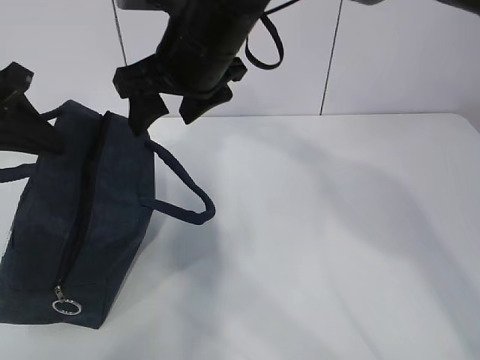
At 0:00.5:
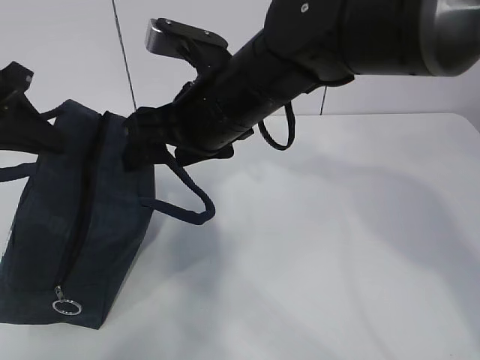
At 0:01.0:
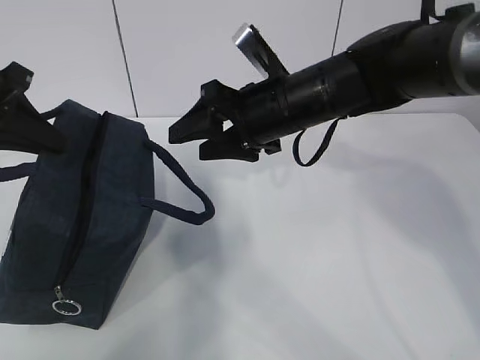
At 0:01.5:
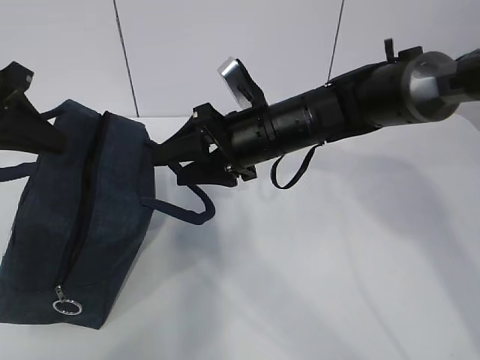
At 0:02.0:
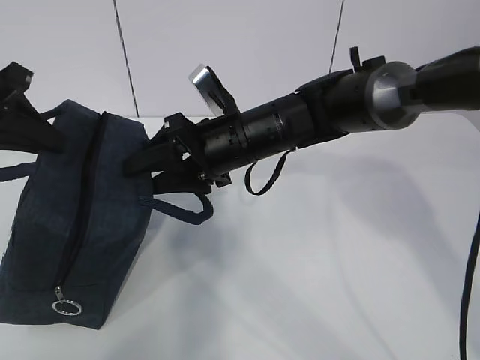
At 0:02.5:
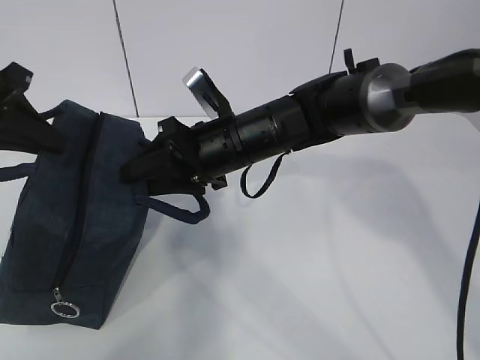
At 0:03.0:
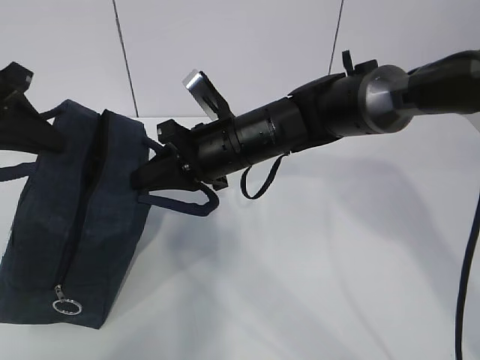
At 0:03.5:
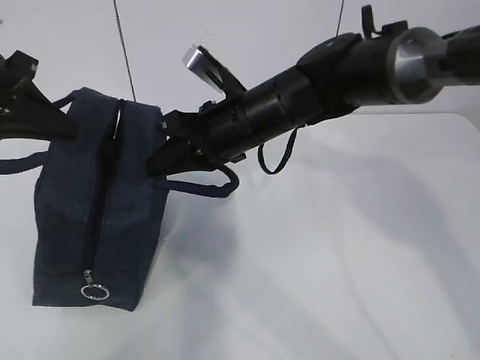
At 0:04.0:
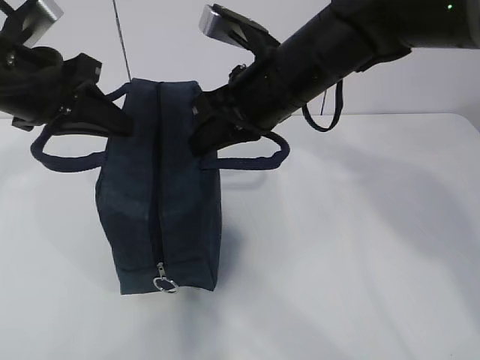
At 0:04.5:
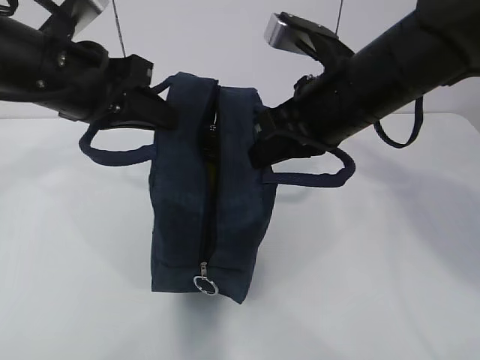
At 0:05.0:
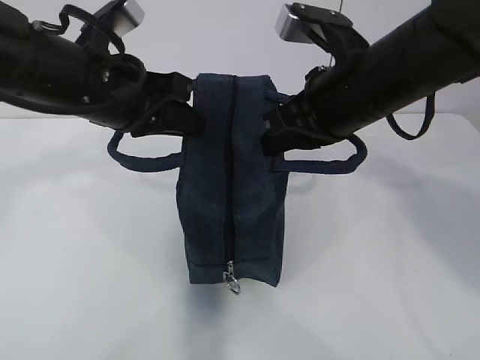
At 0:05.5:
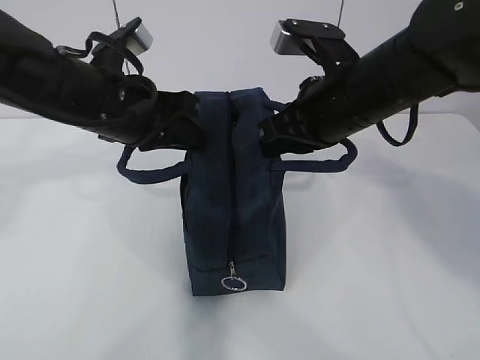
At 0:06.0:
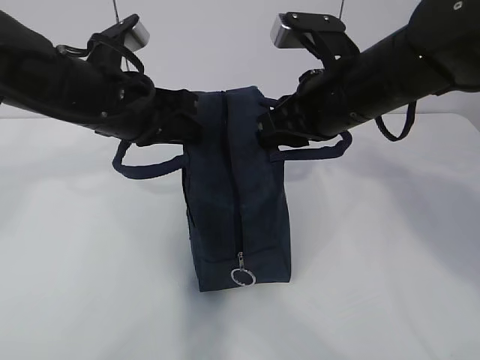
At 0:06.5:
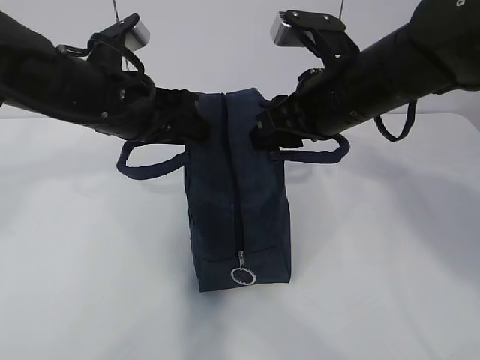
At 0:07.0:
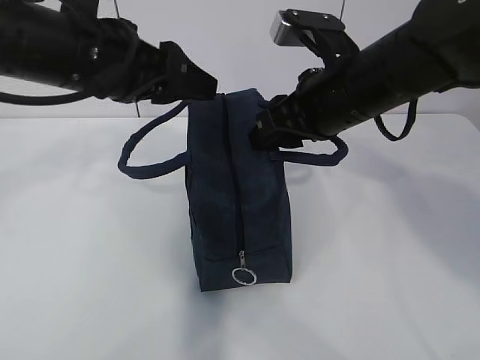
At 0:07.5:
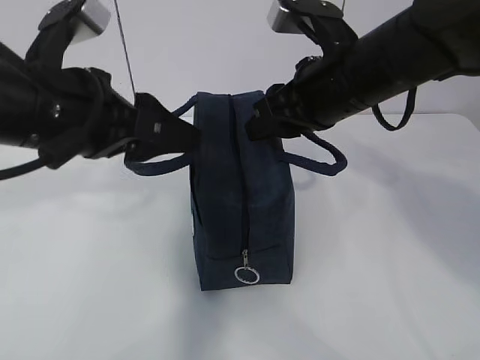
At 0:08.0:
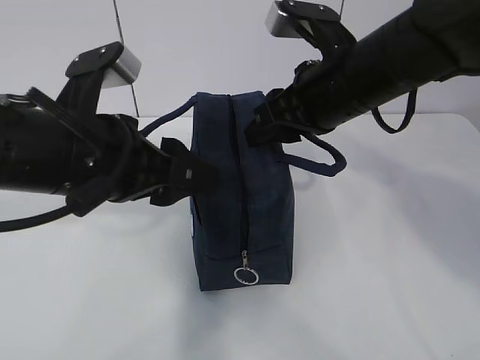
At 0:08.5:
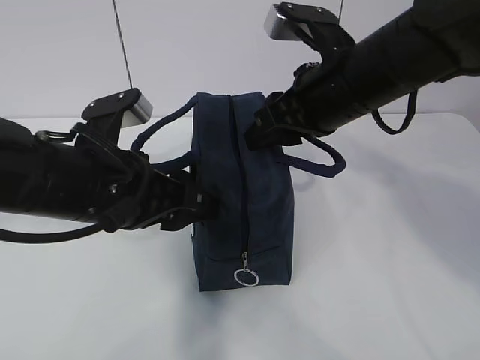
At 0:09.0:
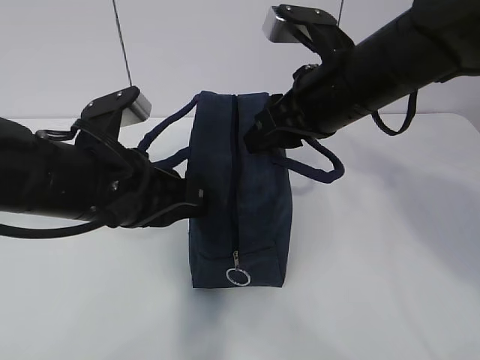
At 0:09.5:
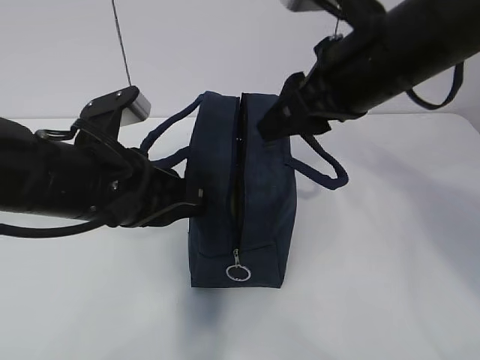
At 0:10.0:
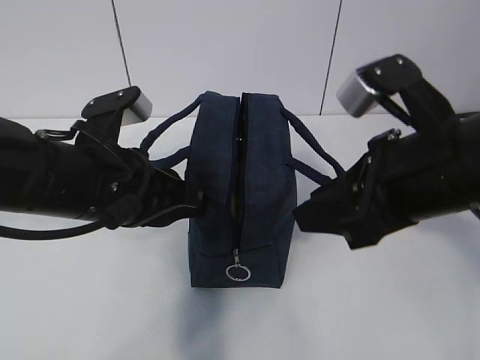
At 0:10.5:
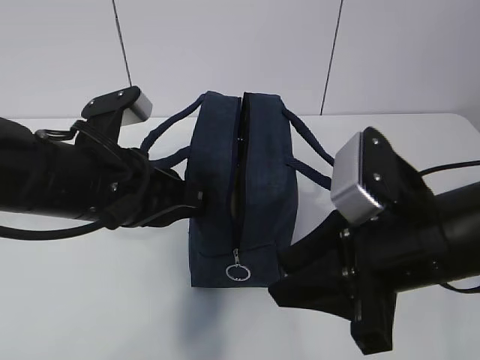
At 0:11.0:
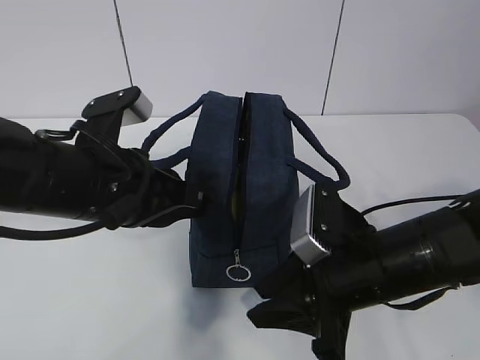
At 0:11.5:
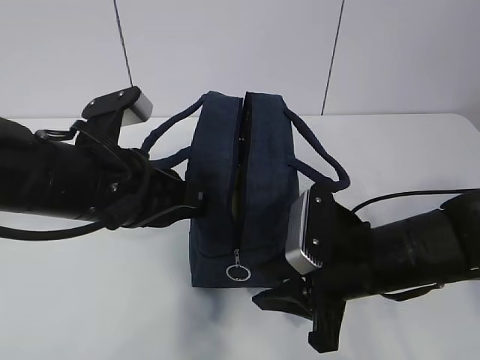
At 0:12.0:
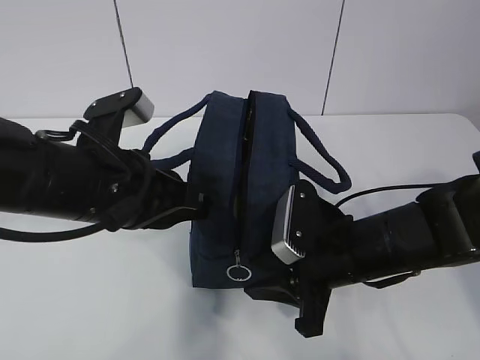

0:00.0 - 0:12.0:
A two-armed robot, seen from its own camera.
0:00.0 - 0:02.0: The right gripper travels downward by about 10 cm.
0:02.0 - 0:04.0: The left gripper moves to the right, approximately 5 cm; the right gripper moves upward, about 10 cm, and closes.
0:04.0 - 0:06.0: Both grippers move to the right, approximately 5 cm.
0:06.0 - 0:08.0: The left gripper travels backward by some 10 cm, and opens.
0:08.0 - 0:10.0: The left gripper closes its fingers. The right gripper goes approximately 10 cm backward.
0:10.0 - 0:12.0: The right gripper travels downward by approximately 15 cm.

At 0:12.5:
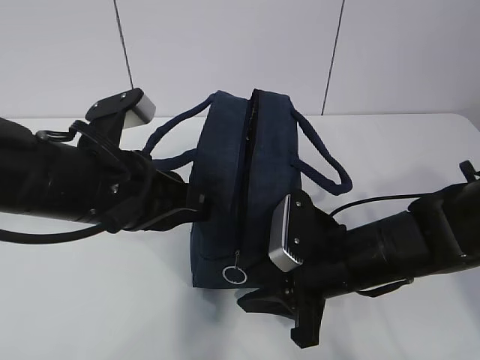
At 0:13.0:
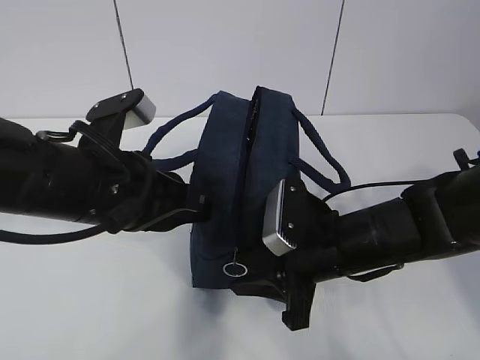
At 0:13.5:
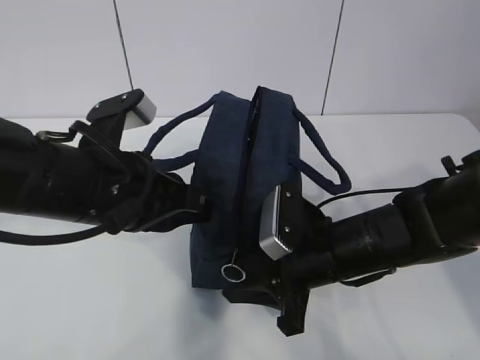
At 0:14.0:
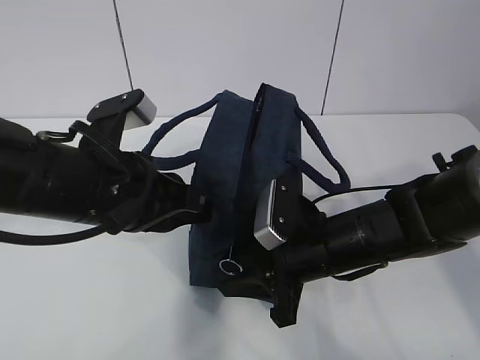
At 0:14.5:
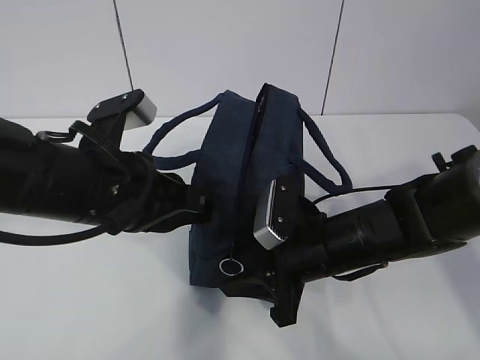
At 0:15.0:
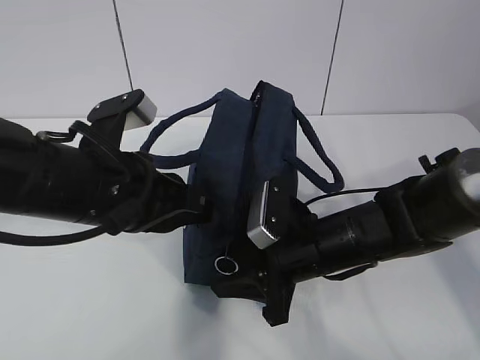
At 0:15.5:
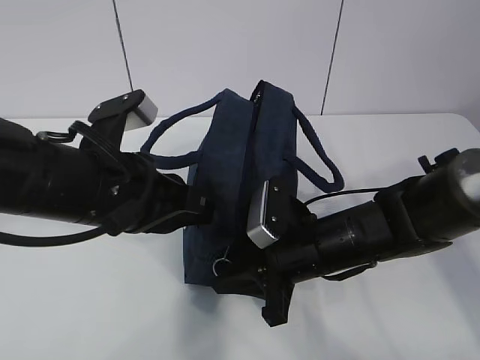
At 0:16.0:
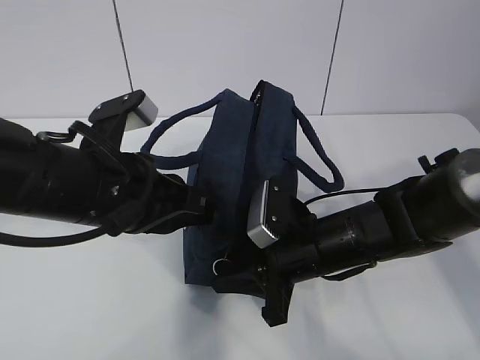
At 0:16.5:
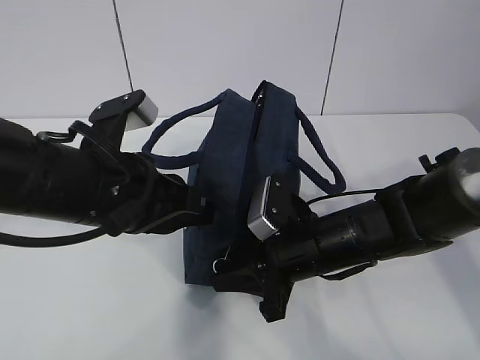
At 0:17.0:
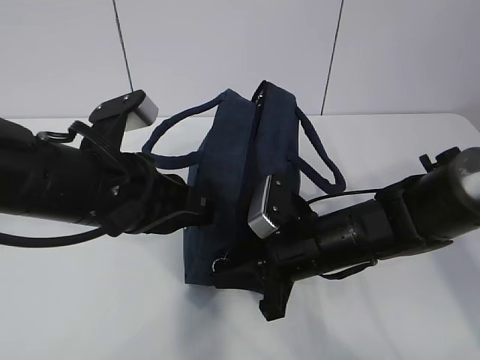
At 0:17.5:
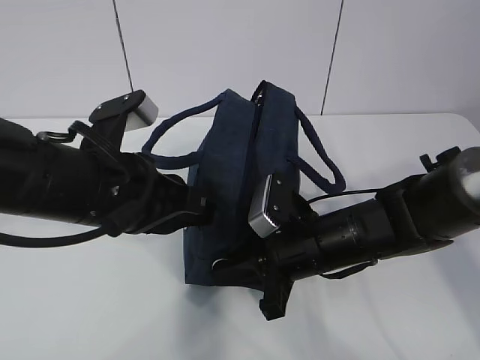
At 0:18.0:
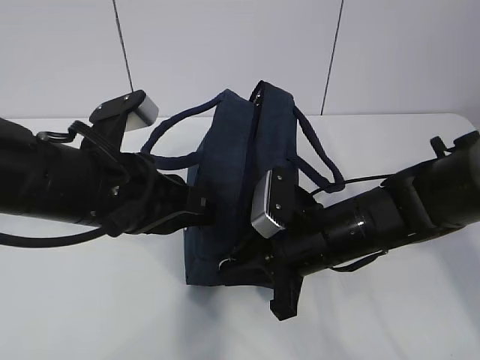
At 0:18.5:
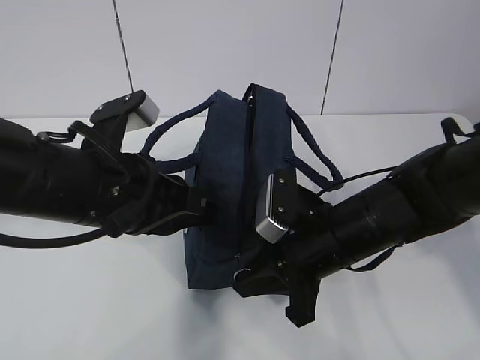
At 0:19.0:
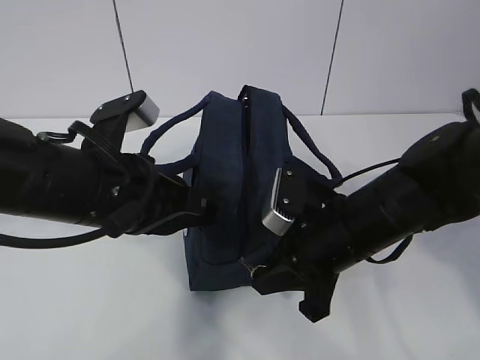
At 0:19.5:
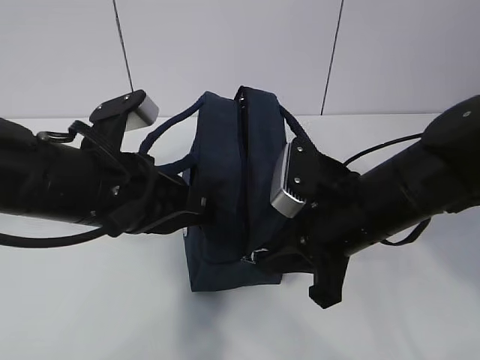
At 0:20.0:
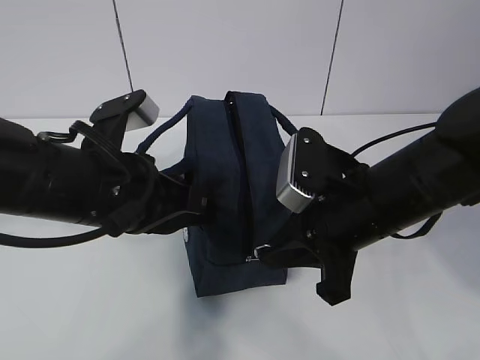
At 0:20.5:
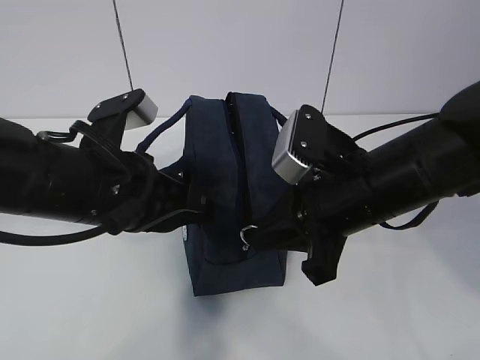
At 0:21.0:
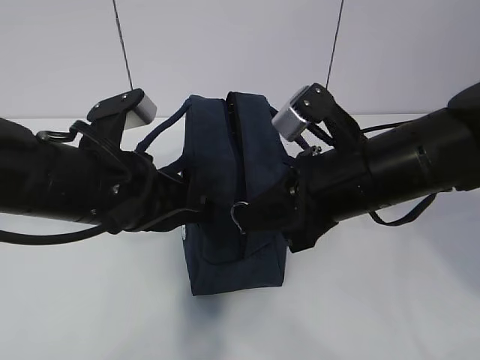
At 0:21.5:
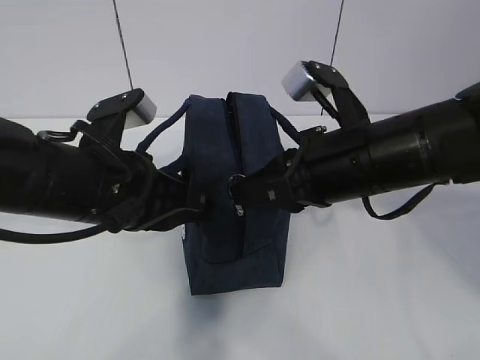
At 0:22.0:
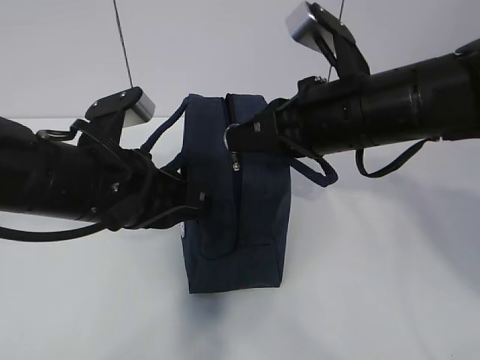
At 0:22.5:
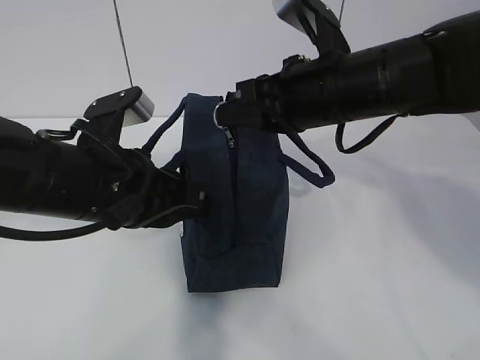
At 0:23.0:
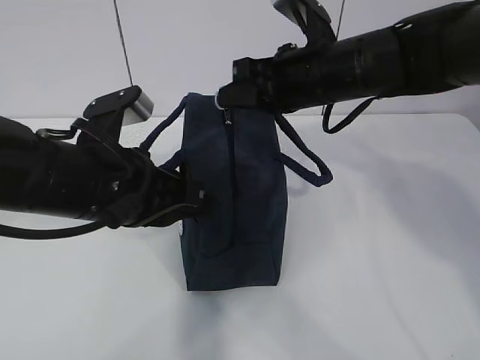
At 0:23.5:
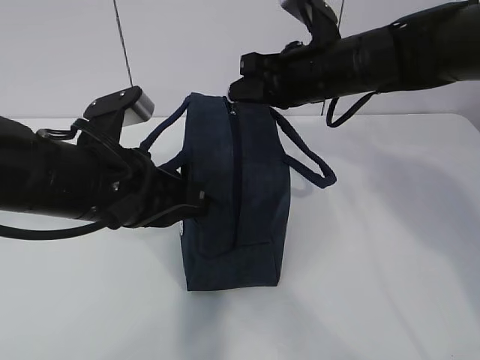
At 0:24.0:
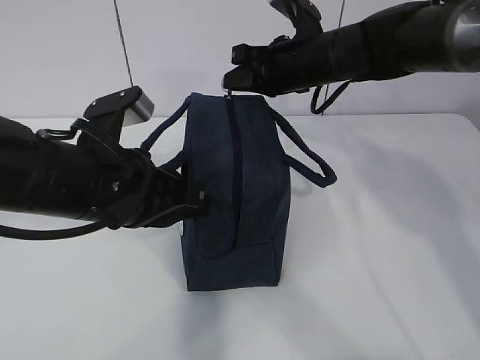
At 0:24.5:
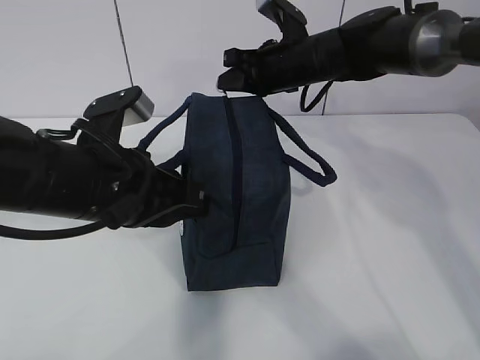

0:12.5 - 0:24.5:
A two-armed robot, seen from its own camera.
0:12.5 - 0:18.5: There are only small adjustments of the grippers.
0:18.5 - 0:20.5: The right gripper shifts approximately 10 cm upward.
0:20.5 - 0:22.5: The right gripper heads forward and upward, covering some 10 cm.
0:22.5 - 0:24.5: The right gripper goes some 15 cm forward.

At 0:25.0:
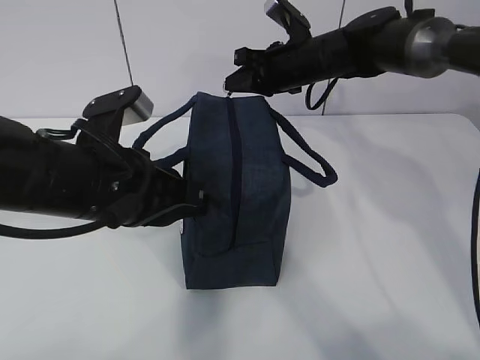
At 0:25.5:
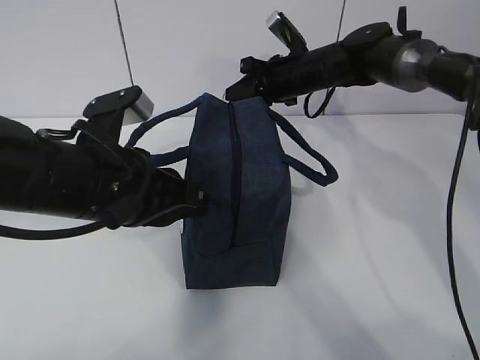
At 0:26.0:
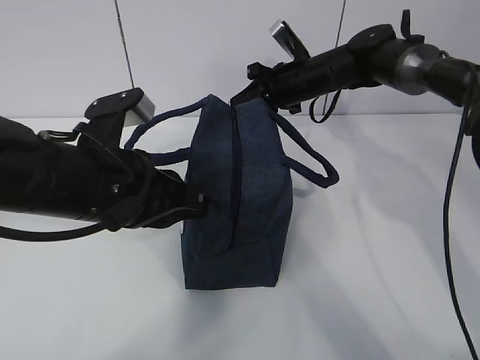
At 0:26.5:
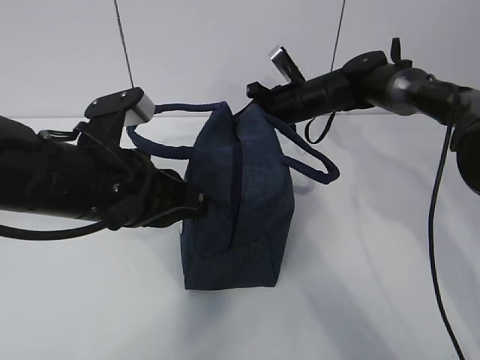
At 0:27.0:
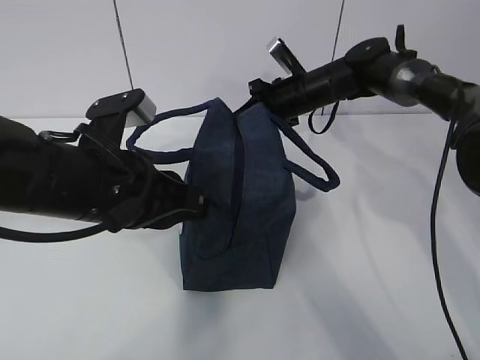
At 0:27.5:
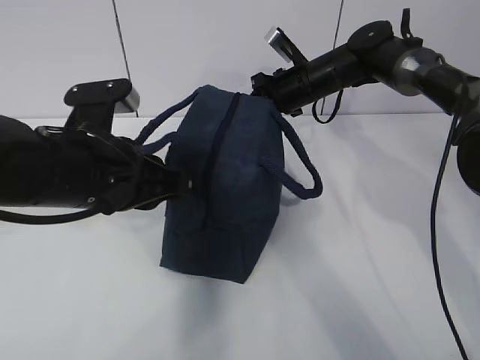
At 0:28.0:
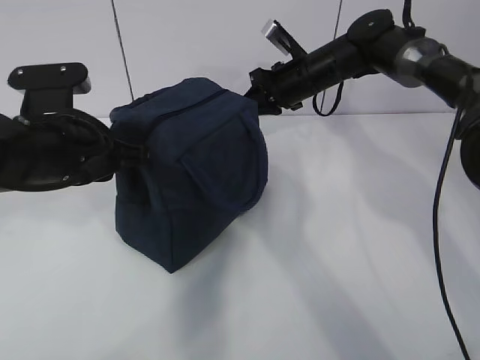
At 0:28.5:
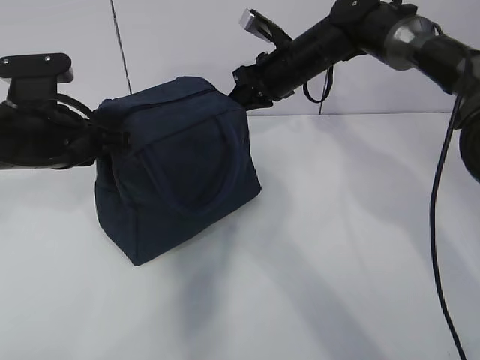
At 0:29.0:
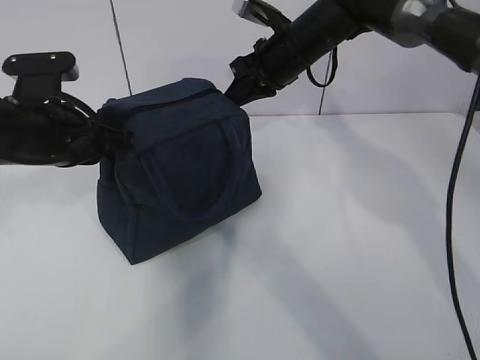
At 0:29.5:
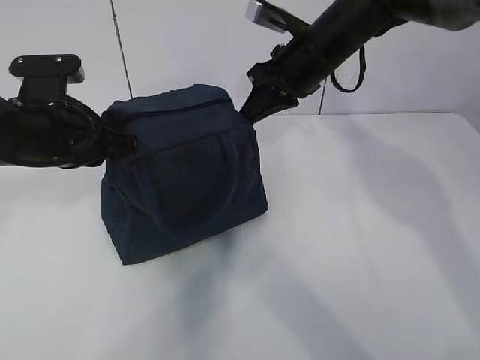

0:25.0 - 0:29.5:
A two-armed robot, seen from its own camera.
0:25.0 - 0:27.0: The right gripper heads downward, covering about 5 cm.
0:27.0 - 0:29.5: The right gripper shifts about 15 cm upward and backward; the left gripper shifts approximately 10 cm forward and to the left.
